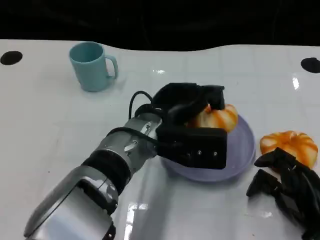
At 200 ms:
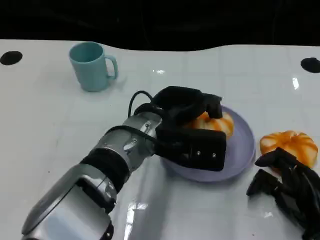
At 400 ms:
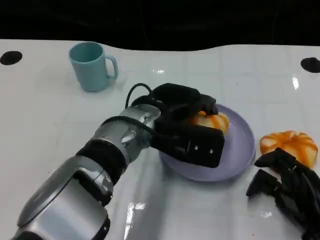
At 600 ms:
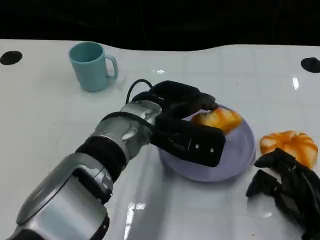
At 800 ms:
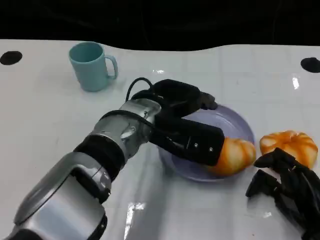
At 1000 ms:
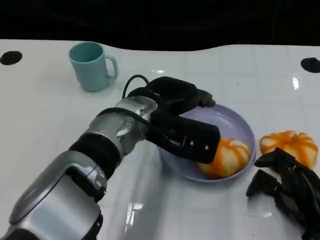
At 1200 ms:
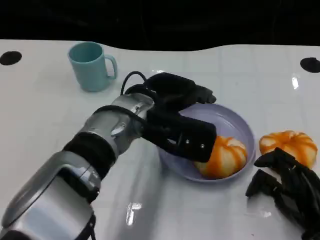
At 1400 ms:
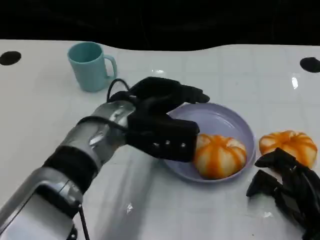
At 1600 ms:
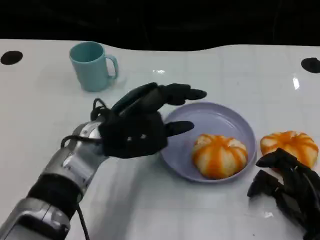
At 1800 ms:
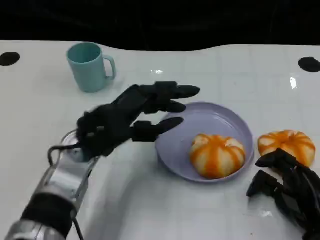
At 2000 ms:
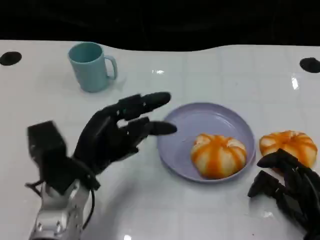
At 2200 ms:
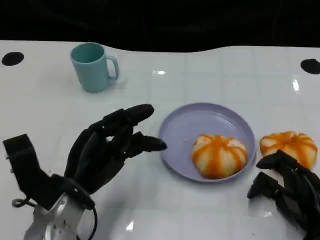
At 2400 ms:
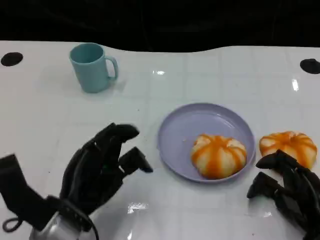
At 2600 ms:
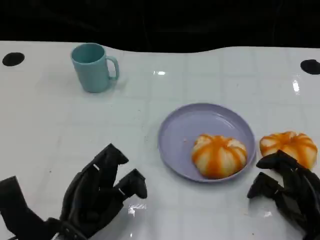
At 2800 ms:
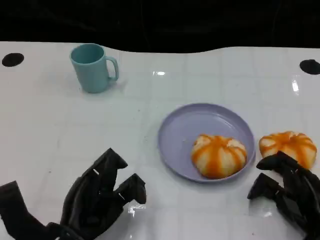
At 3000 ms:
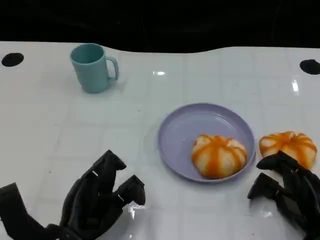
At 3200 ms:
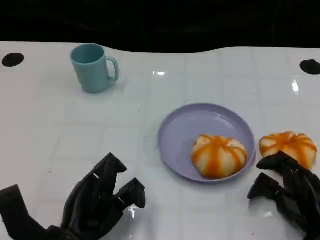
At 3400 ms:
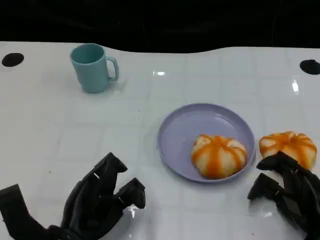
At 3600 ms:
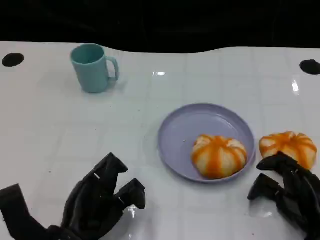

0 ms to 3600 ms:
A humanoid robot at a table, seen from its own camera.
Task of the whole recording: Grasp the bread from the table and place it into the plate.
0 ms to 1800 ms: The left hand moves to the left, approximately 10 cm.
1800 ms to 3600 ms: The left hand goes roughly 15 cm backward and downward.

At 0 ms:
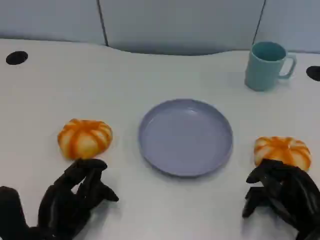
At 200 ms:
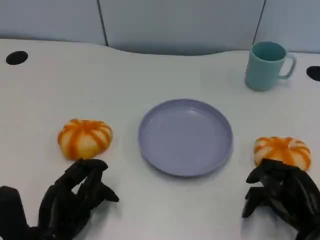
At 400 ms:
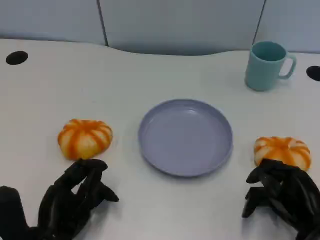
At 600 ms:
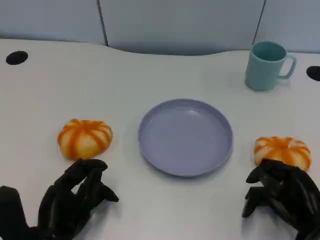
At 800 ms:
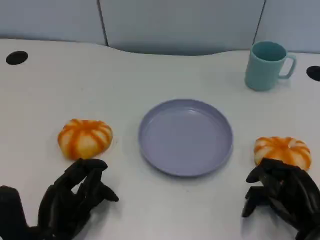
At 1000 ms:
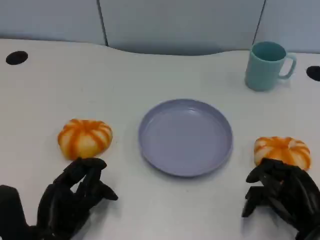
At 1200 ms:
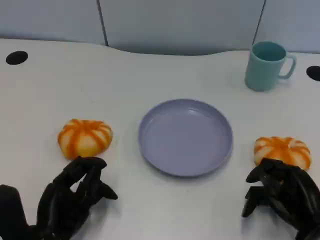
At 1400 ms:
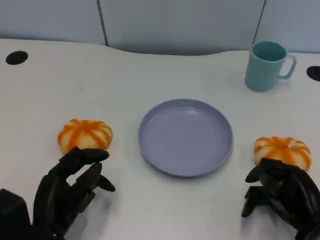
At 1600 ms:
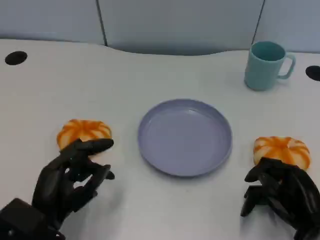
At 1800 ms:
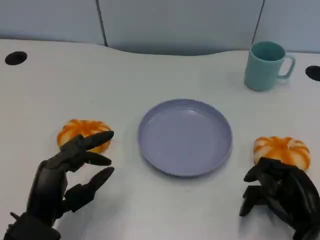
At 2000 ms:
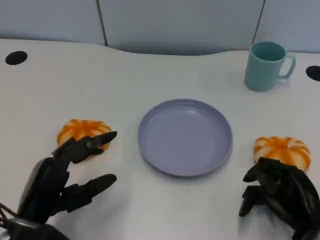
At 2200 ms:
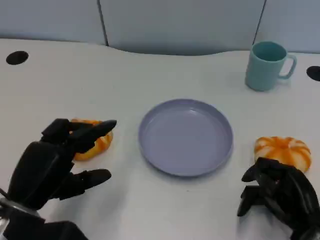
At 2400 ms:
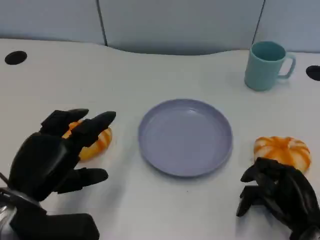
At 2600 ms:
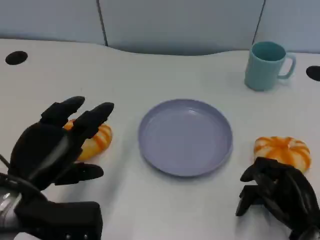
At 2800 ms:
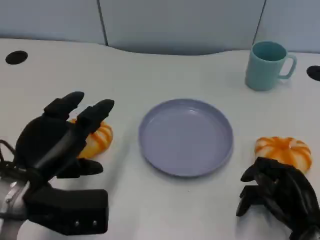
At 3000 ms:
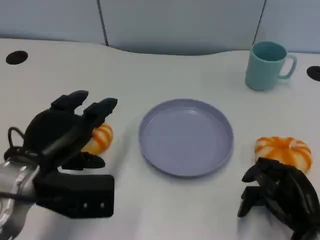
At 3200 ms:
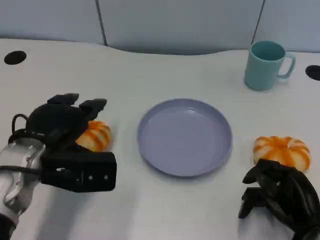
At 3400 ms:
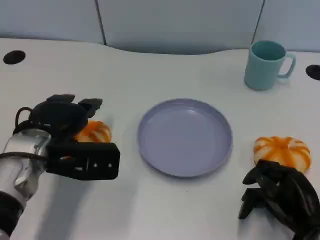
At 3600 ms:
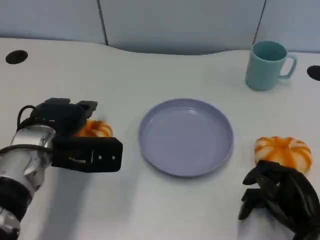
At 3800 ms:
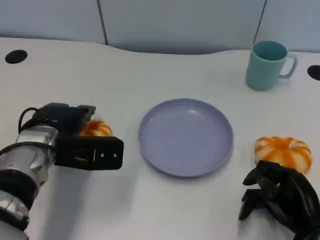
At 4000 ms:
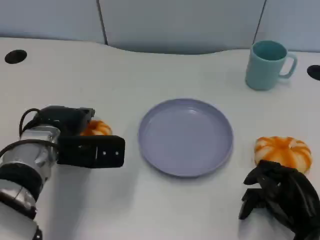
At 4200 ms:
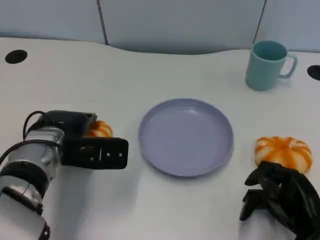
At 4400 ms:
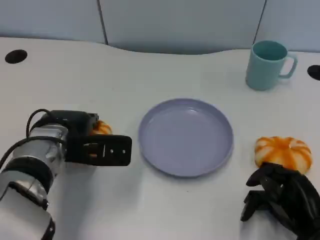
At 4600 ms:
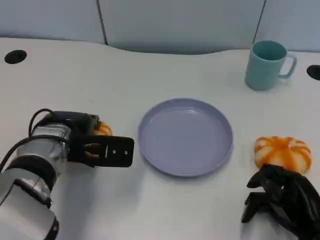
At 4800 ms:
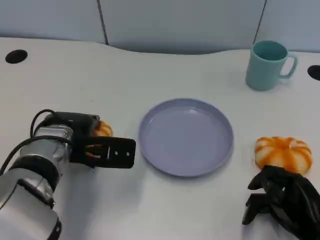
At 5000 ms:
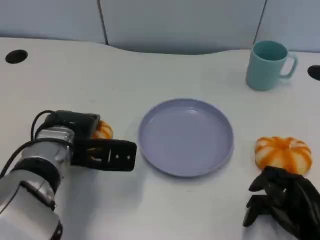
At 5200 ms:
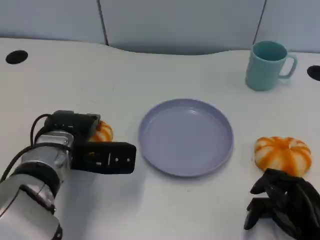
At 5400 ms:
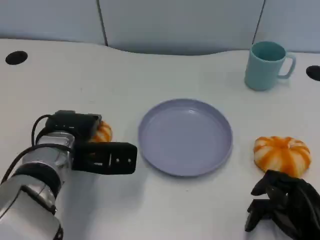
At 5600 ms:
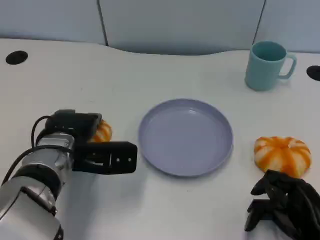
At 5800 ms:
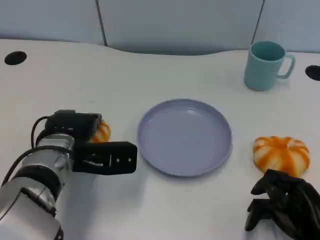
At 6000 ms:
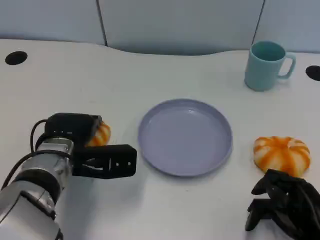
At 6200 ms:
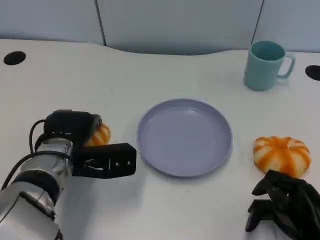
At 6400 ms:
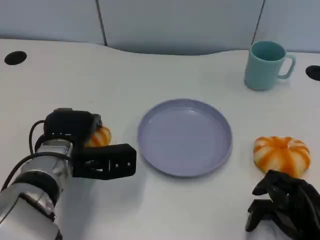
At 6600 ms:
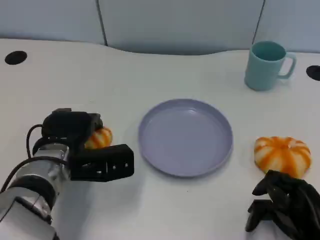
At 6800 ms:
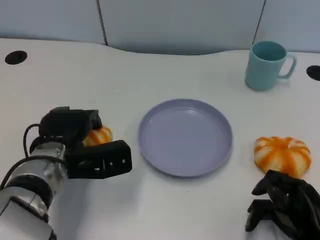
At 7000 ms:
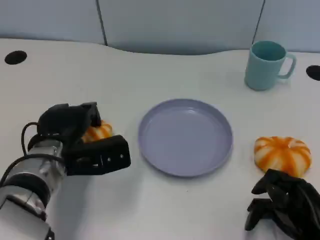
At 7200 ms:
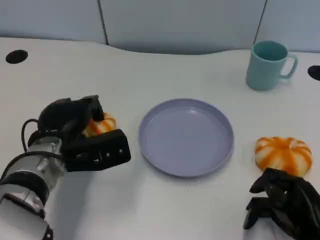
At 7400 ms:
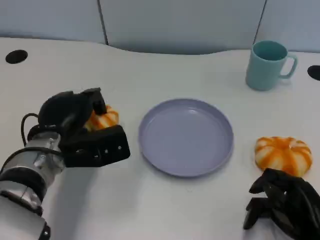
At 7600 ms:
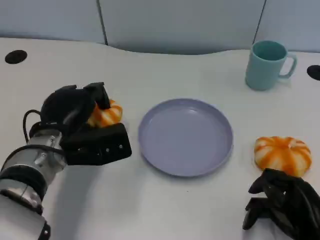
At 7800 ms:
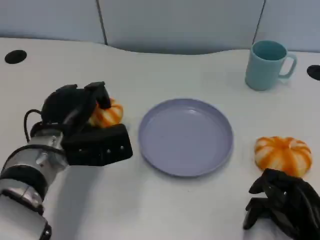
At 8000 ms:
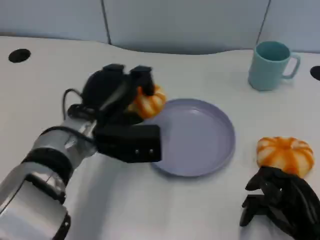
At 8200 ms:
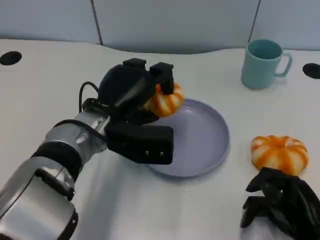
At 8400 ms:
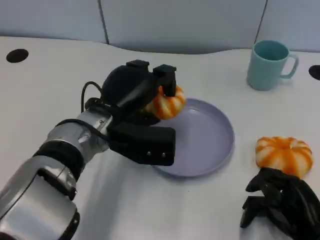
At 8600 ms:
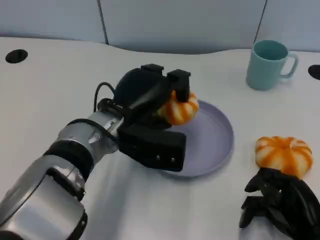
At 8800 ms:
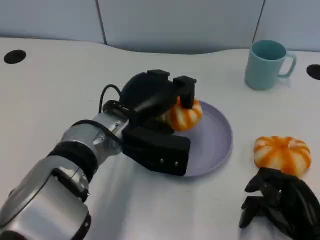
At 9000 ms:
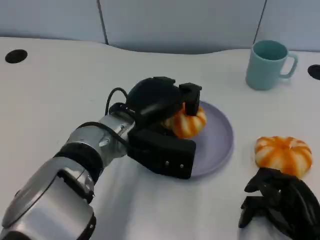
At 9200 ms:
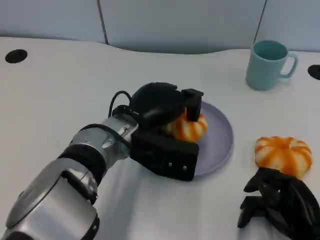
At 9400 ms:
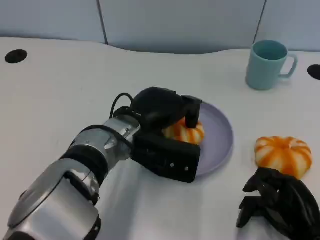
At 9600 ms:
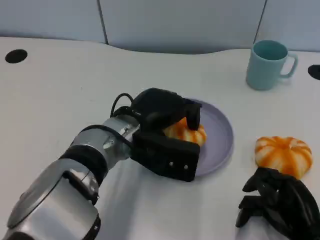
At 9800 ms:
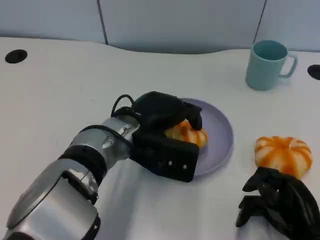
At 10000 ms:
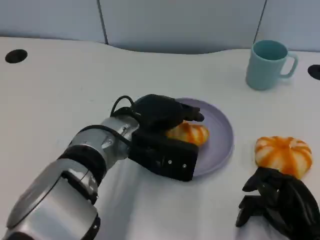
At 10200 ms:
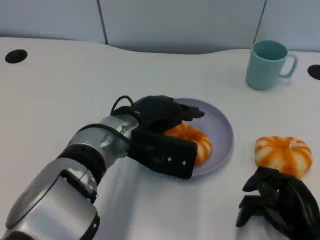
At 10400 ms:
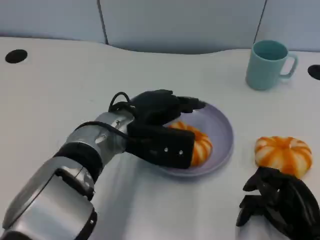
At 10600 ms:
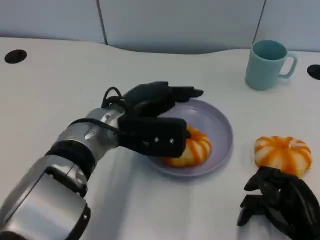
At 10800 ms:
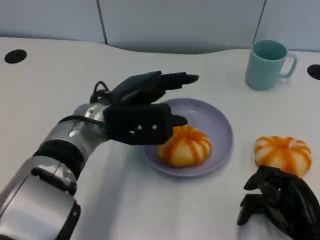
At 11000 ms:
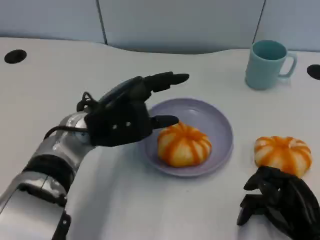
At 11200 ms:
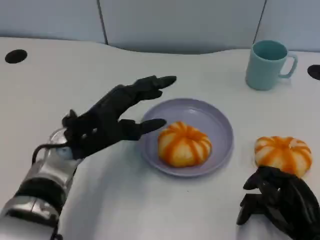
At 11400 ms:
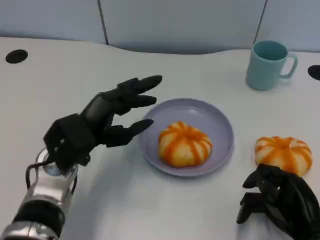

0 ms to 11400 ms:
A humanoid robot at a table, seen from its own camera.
Task of the whole recording: Grasp the bread from the table and place it into the plate.
0 ms to 1400 ms: The hands stay close to where they were, moving slightly.
1400 ms to 2800 ms: The left hand moves upward, approximately 10 cm.
2800 ms to 4200 ms: The left hand heads forward, covering about 10 cm.
4200 ms to 5600 ms: The hands stay close to where they were, moving slightly.
7200 ms to 8600 ms: The left hand goes roughly 10 cm to the right.
10000 ms to 11400 ms: The left hand moves to the left, some 10 cm.

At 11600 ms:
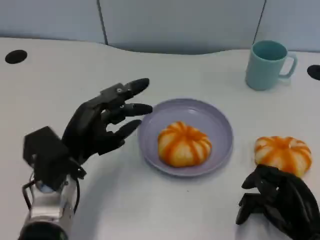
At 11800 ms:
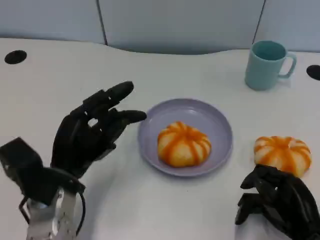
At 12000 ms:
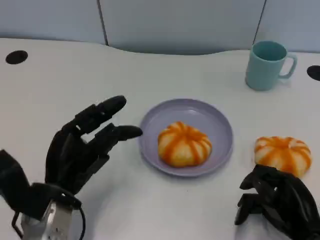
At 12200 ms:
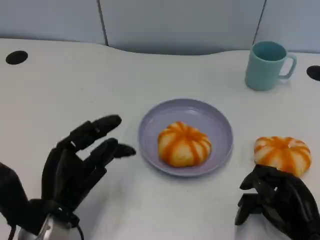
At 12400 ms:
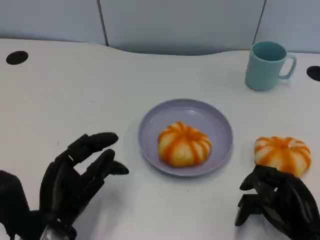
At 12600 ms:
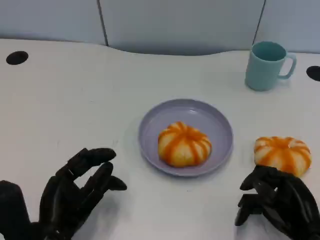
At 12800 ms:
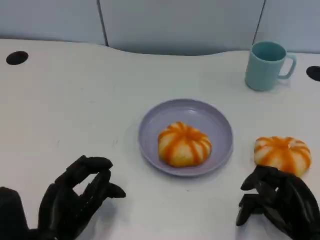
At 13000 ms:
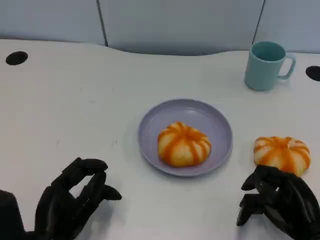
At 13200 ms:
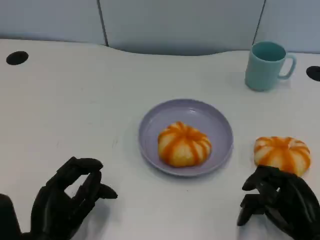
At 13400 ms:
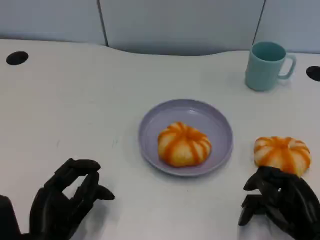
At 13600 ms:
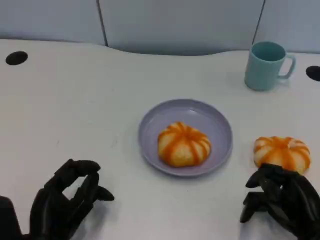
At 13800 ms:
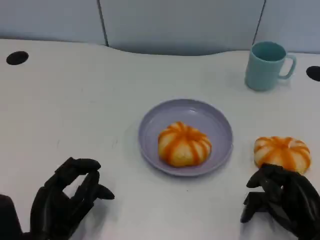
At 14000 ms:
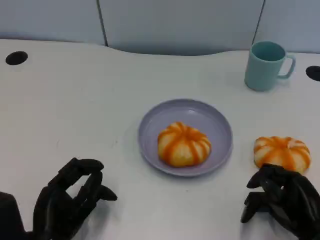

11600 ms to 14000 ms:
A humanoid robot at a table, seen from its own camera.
Task of the whole recording: Grasp the bread from the table and place it into the plate.
11600 ms to 12800 ms: The left hand goes about 10 cm backward.
12800 ms to 14000 ms: Both hands stay about where they are.

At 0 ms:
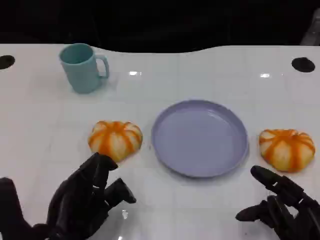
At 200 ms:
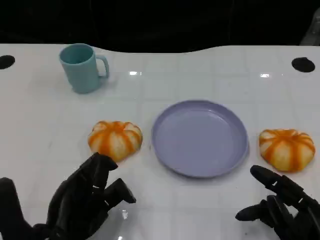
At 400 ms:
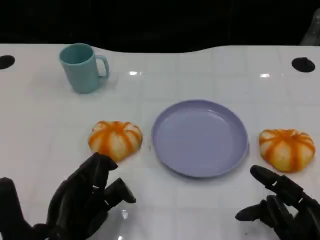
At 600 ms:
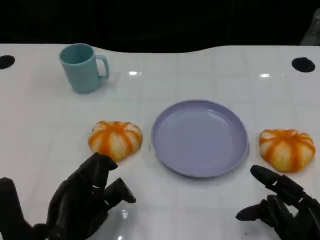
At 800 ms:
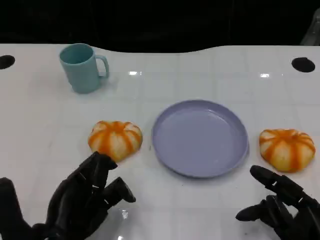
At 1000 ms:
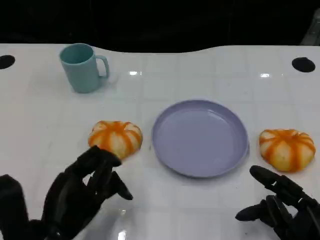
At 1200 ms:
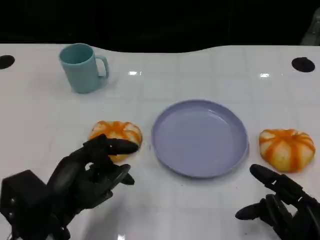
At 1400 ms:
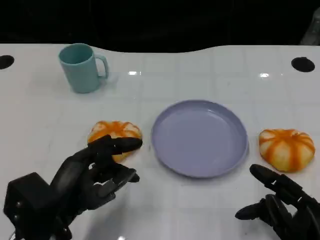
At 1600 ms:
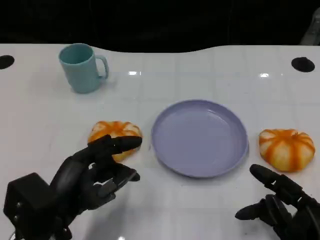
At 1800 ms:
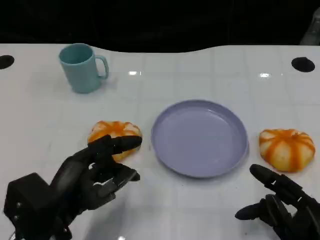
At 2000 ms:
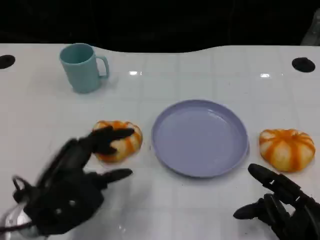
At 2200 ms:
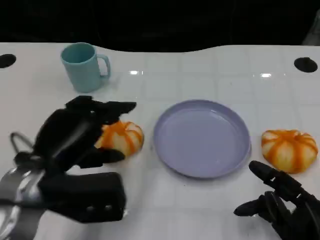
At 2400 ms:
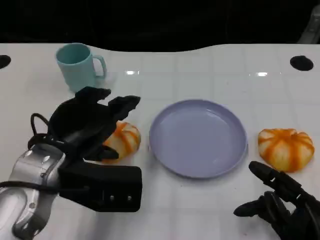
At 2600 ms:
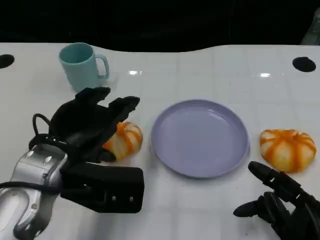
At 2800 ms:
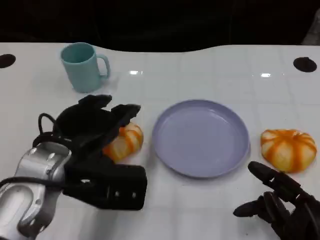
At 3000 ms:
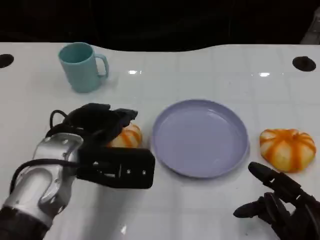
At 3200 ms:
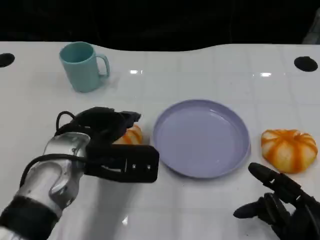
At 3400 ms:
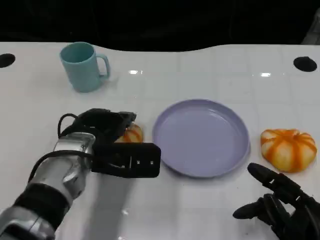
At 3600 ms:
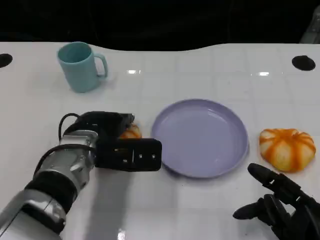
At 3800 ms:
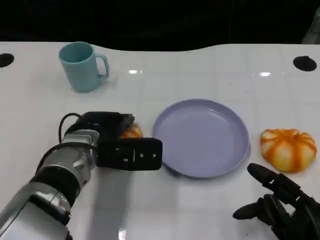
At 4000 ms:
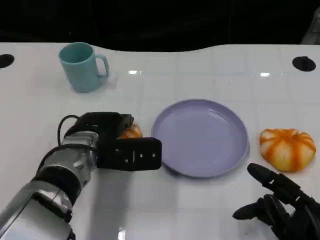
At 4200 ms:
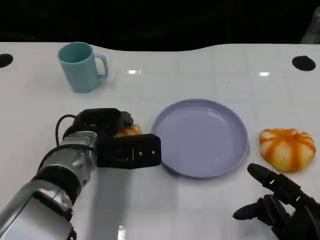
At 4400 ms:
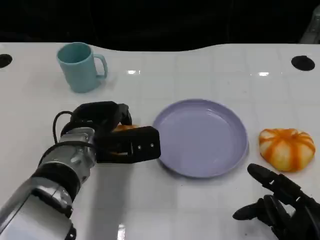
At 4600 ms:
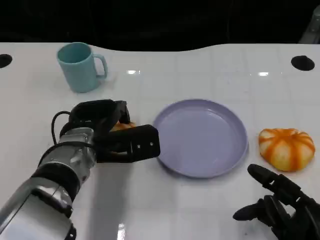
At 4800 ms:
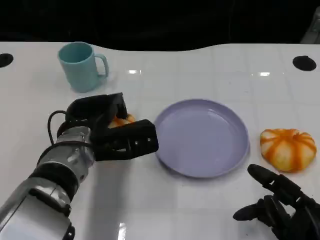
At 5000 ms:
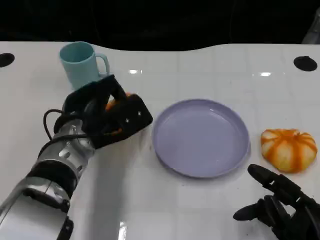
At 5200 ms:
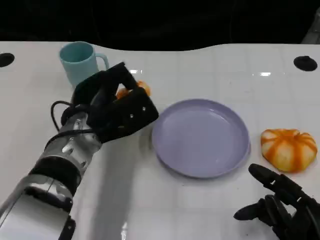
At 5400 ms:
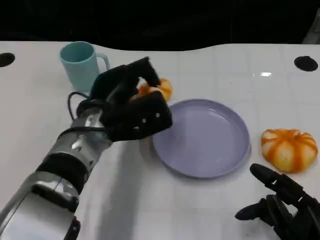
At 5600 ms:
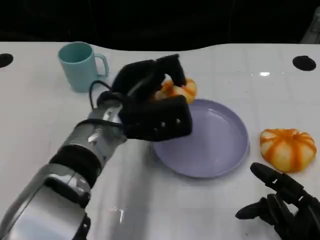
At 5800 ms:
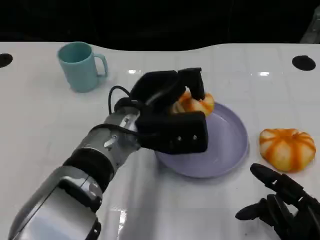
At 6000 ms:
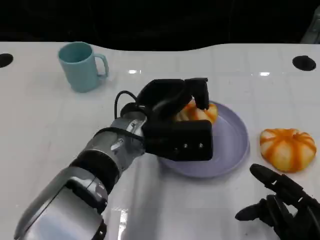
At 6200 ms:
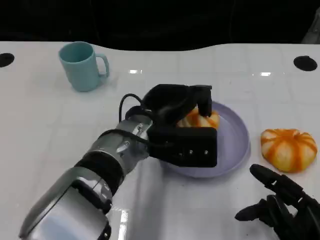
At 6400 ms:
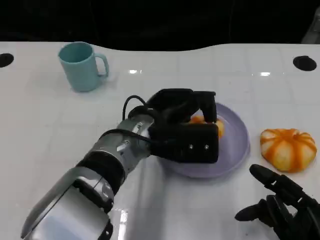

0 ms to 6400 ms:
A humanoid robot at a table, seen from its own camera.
Task of the whole recording: Grasp the bread from the table and place it into the plate.
1600 ms to 3200 ms: The left hand heads forward, covering some 10 cm.
4800 ms to 6400 ms: The left hand shifts some 10 cm to the right.
